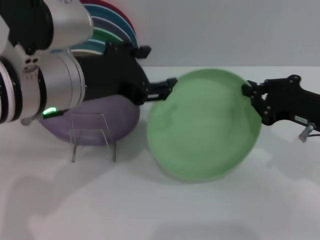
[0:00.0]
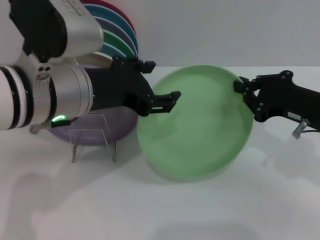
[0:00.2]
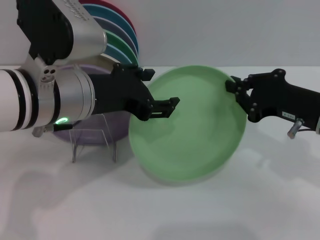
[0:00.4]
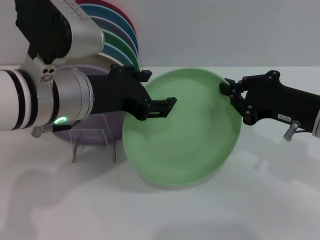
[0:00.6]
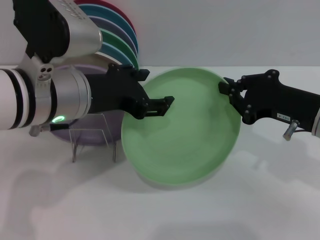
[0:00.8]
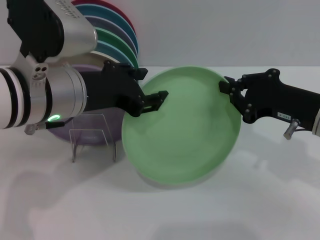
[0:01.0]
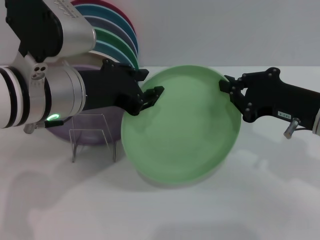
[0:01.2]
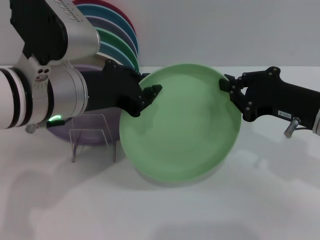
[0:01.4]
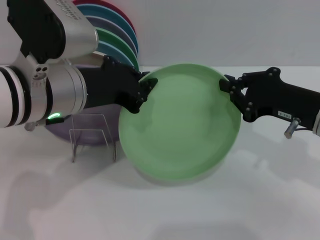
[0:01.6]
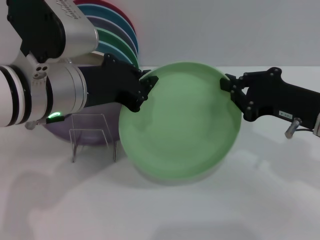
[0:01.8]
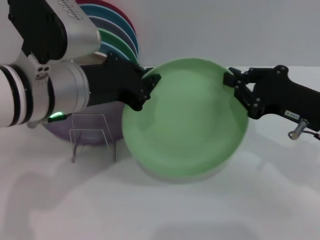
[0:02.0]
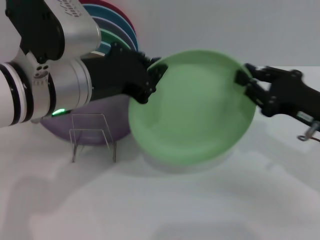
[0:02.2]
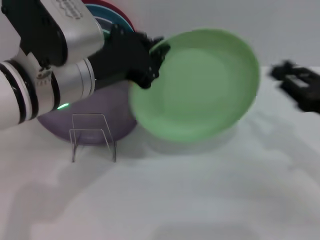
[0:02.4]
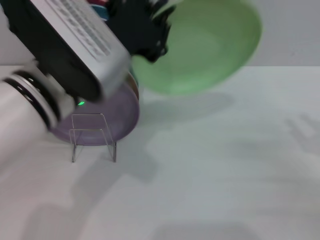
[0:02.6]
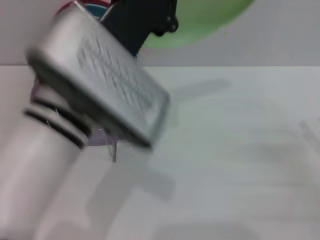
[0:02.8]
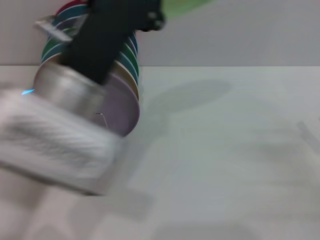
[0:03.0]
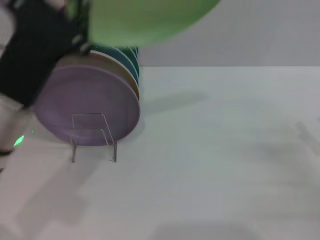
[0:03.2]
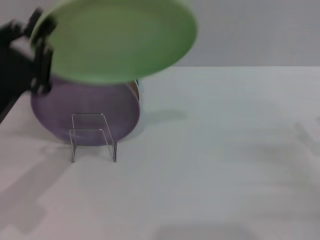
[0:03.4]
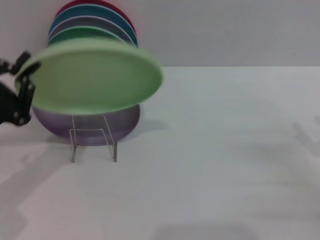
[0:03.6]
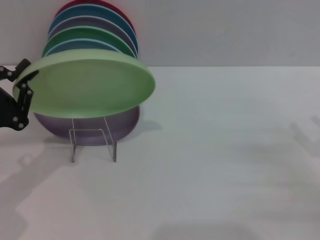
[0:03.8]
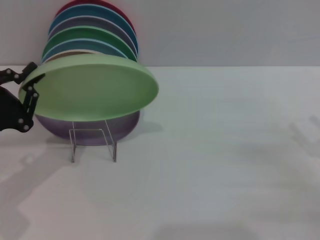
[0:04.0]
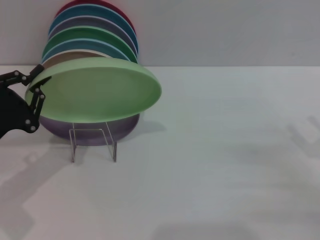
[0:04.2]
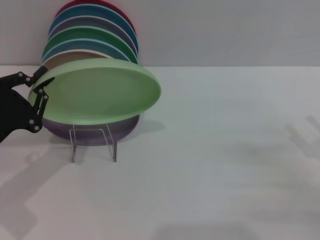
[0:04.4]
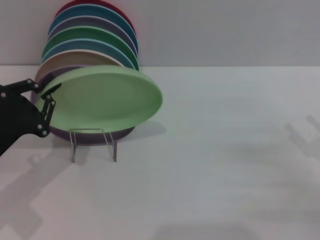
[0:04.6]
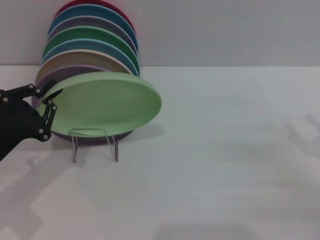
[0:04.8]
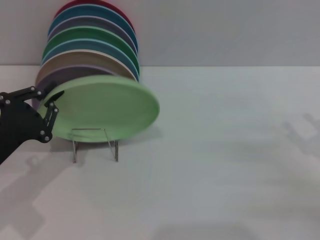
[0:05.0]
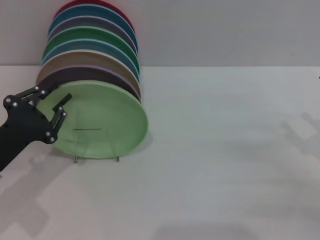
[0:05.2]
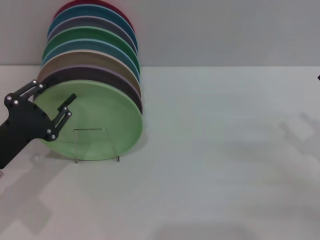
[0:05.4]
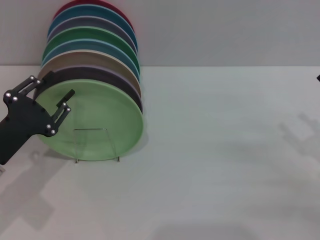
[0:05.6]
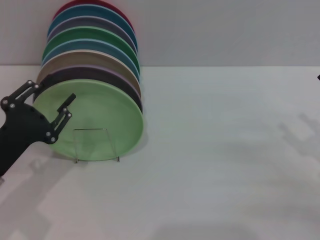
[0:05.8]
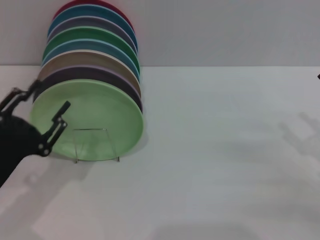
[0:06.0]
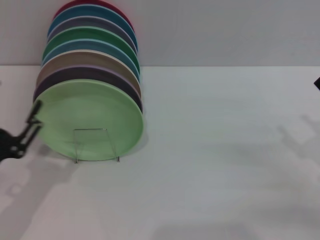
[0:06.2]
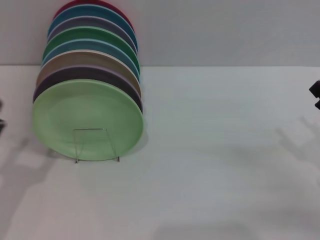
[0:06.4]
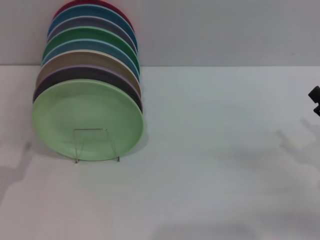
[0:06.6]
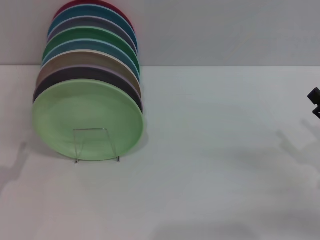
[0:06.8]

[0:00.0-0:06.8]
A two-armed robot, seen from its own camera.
Task of the whole recording: Grip the plate with one hand, pass it to the other, then set it on the shelf.
Step, 0:00.0 to 0:02.4: Pass the plate from the right gripper to the left gripper.
Step, 0:02.6 to 0:06.0: Place the plate on the shelf with the left gripper.
0:00.0 to 0:01.4: The left gripper closes up.
0:01.4 to 0:02.8: The right gripper is displaced to the right, downward and backward by approximately 15 cm, and opens its fingers. The left gripper moves to the right, about 5 cm, and closes its fingers.
0:02.8 to 0:04.0: The left gripper shifts some 25 cm to the left and downward.
0:04.0 to 0:05.4: The grippers make only small movements.
0:05.4 to 0:06.8: The left gripper shifts approximately 10 cm backward, and opens.

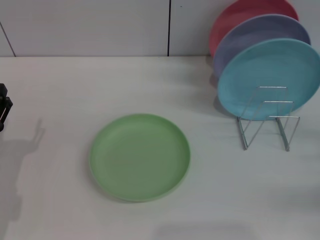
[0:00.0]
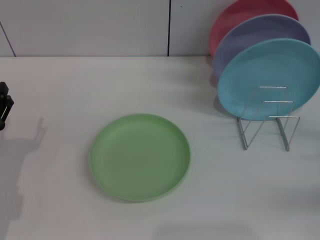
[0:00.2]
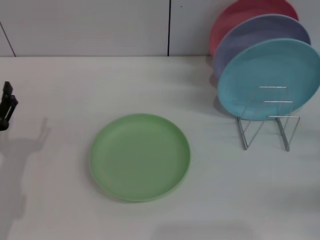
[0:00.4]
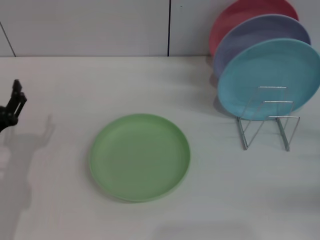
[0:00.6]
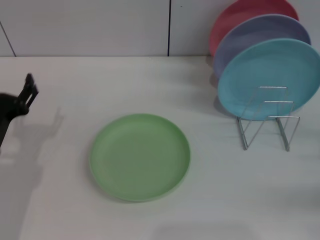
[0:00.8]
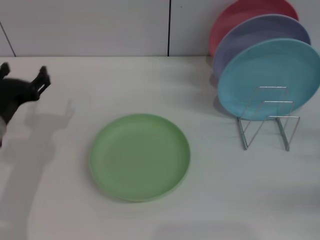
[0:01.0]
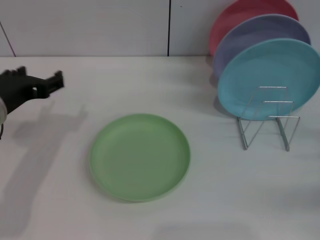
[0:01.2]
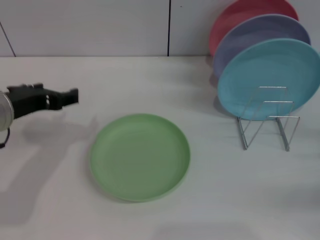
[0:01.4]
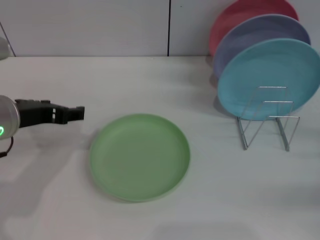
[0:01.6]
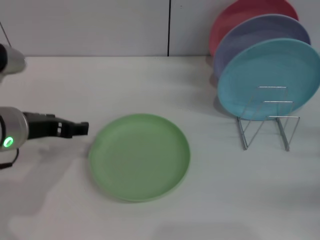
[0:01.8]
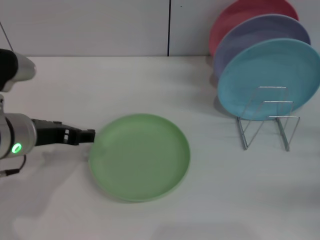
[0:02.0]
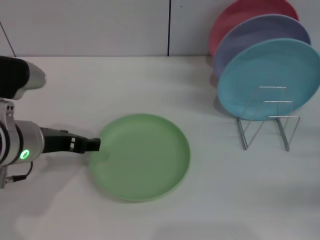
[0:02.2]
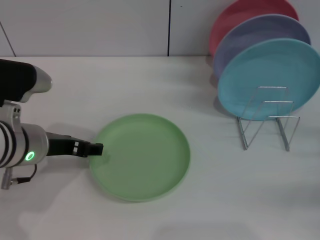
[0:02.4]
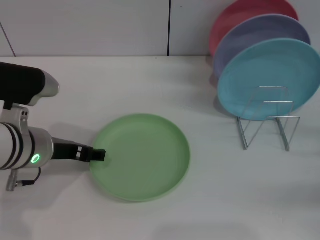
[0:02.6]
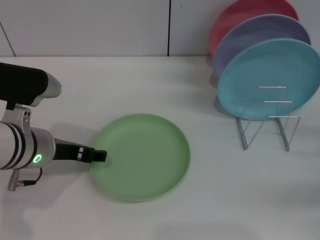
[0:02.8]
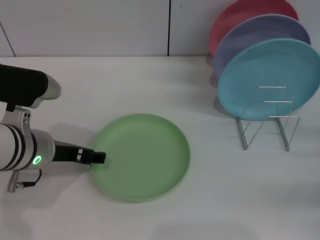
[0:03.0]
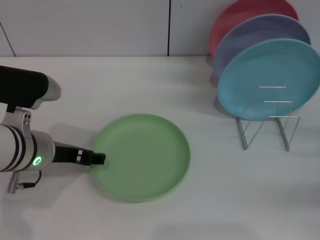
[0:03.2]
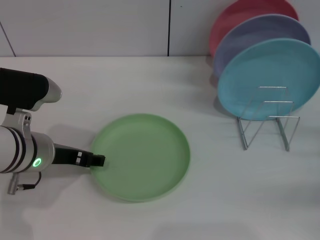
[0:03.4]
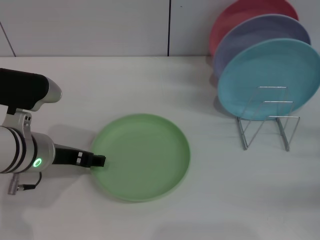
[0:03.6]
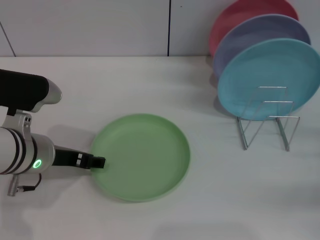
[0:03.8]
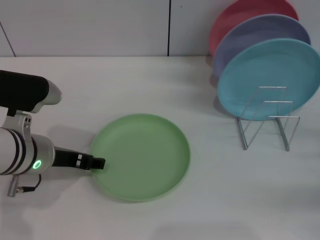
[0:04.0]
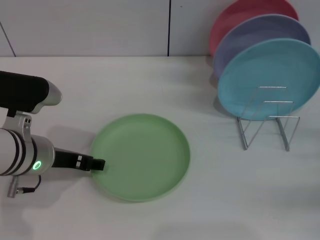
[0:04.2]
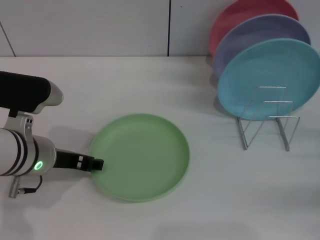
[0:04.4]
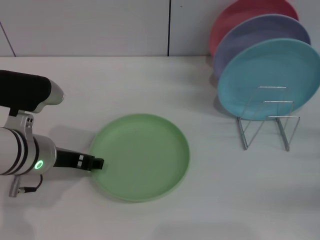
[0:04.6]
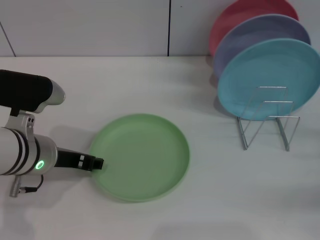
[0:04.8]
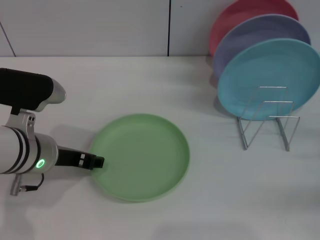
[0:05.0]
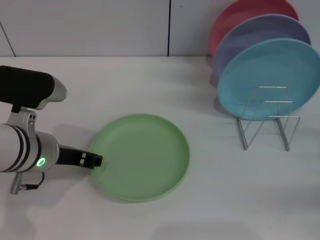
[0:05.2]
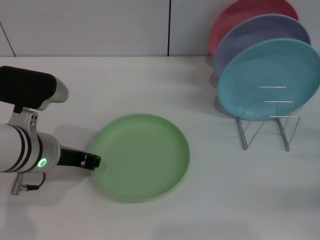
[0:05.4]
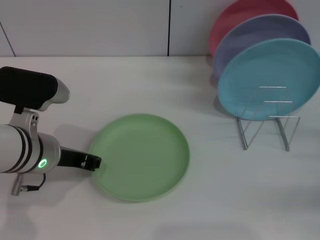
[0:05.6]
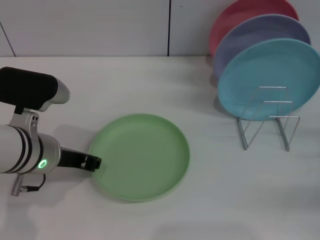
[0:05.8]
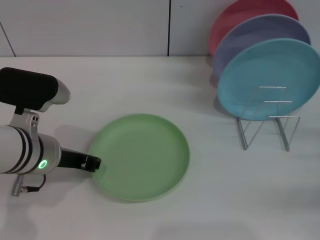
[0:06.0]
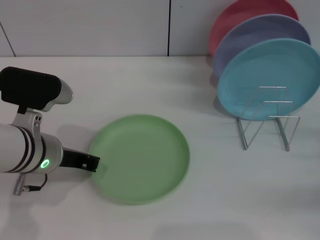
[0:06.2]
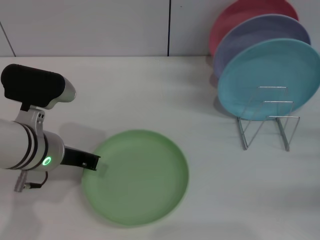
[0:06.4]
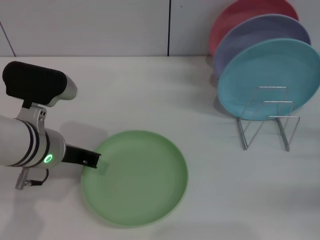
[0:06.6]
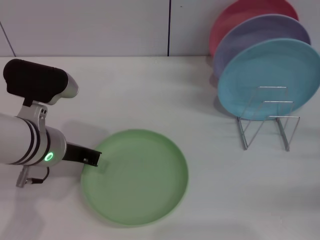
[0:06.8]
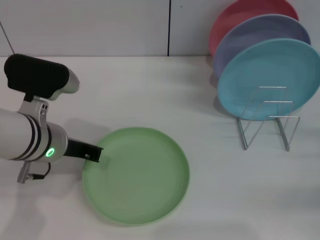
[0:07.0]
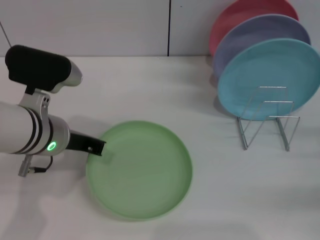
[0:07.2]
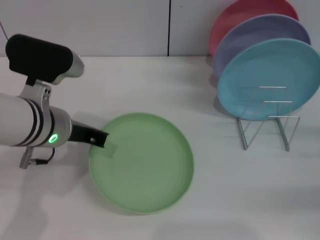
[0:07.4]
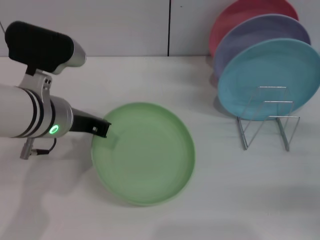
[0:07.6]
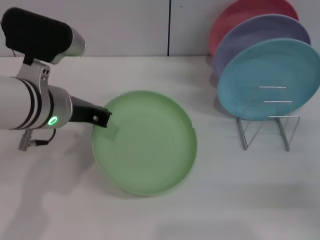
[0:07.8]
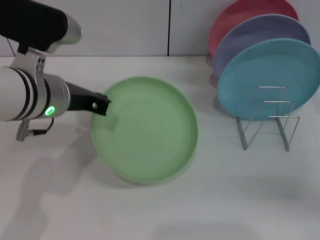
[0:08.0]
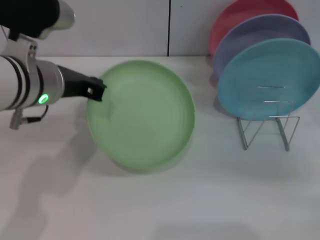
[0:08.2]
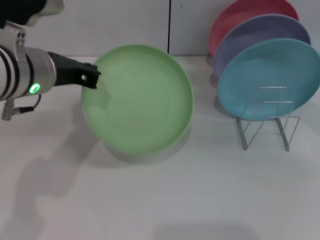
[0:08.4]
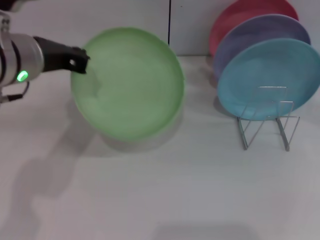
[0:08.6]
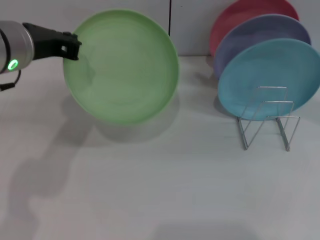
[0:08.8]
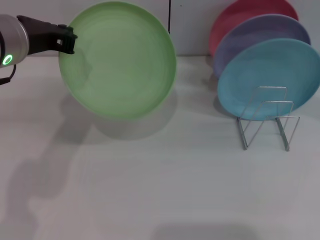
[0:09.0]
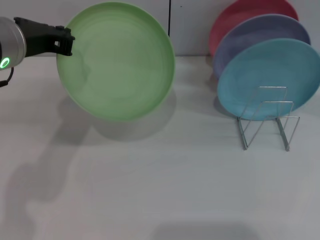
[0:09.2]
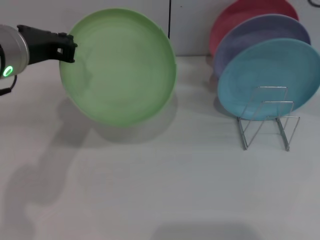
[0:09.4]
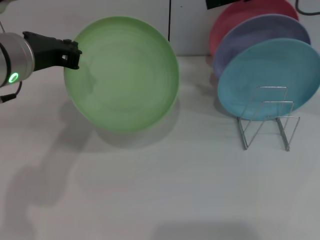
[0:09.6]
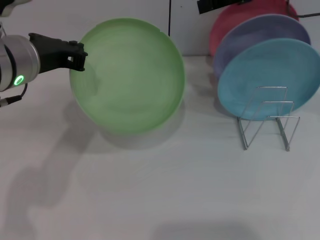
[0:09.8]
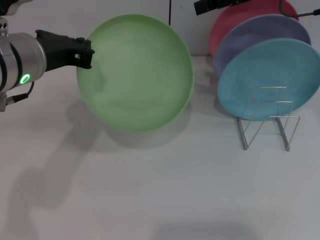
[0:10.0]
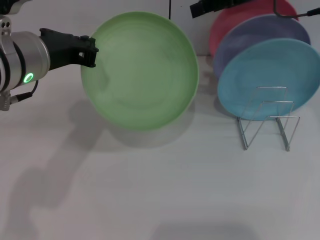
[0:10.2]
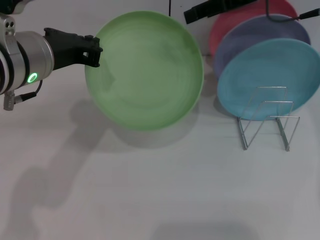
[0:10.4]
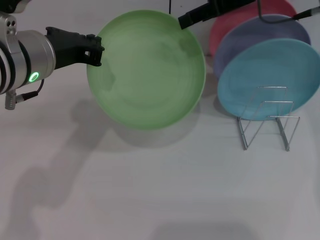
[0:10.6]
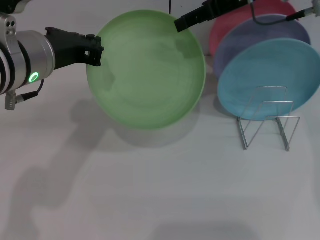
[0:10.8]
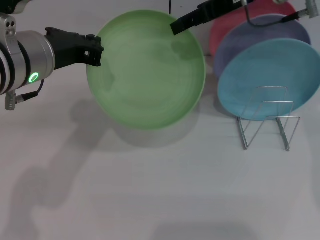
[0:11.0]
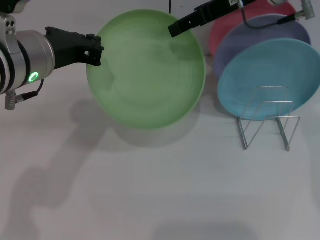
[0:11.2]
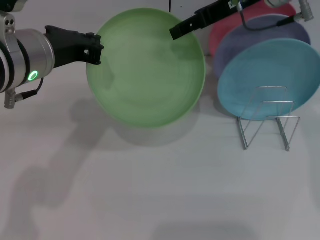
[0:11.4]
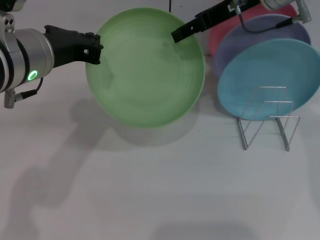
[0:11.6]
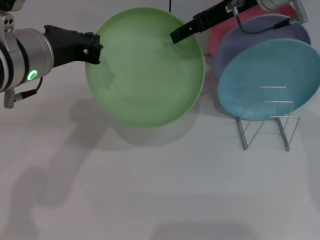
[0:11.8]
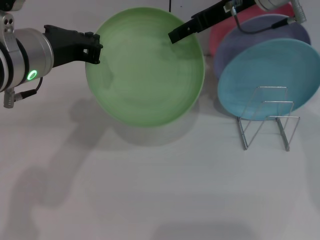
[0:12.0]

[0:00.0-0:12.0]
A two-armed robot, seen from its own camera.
Task of the whole recording: Grip the plate with one hand, pass it to the other, then set it on the shelf.
Step, 0:00.0 to 0:07.6: Pick up the plate with the left gripper.
0:00.0 to 0:01.6: The left gripper goes about 15 cm upward, to the right and forward.
0:01.6 to 0:03.0: The left gripper travels downward by about 5 cm.
0:03.0 to 0:04.4: The two grippers keep their place.
0:04.4 to 0:06.0: The left gripper closes its fingers.
0:06.0 to 0:07.6: The left gripper changes place by roughly 5 cm, and closes up.
0:07.6 to 0:09.0: The right gripper shifts roughly 30 cm upward and to the left; the left gripper goes roughly 10 cm upward.
0:09.0 to 0:10.4: The right gripper heads downward and forward, covering some 10 cm.
0:10.4 to 0:12.0: The grippers stay close to where they were, moving slightly.

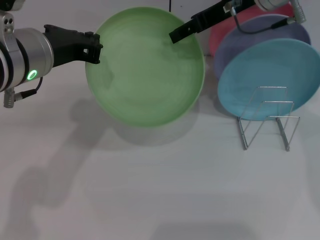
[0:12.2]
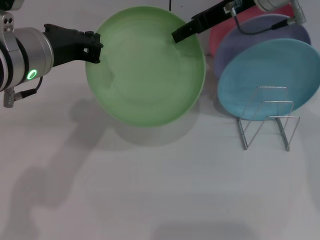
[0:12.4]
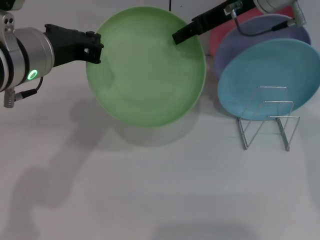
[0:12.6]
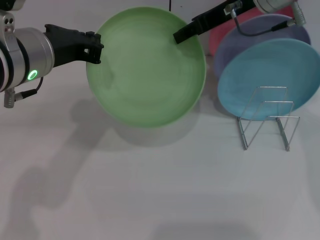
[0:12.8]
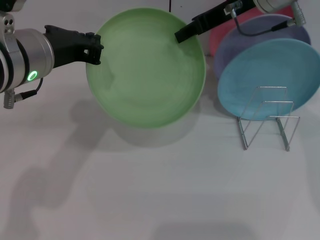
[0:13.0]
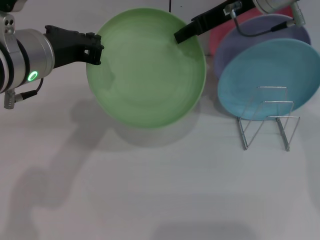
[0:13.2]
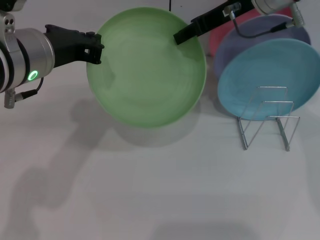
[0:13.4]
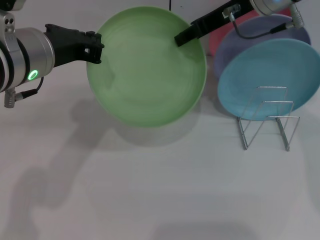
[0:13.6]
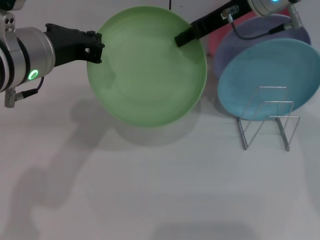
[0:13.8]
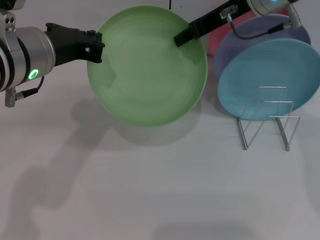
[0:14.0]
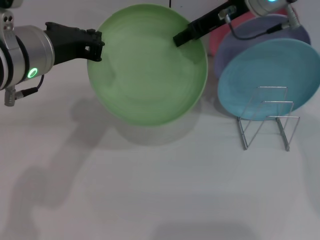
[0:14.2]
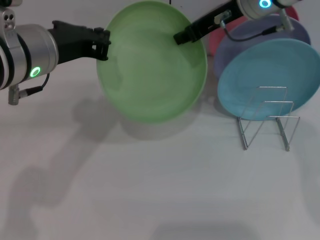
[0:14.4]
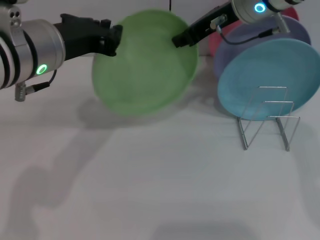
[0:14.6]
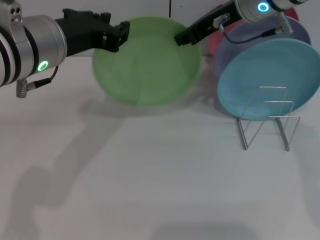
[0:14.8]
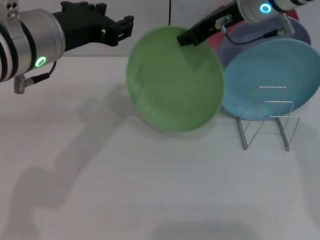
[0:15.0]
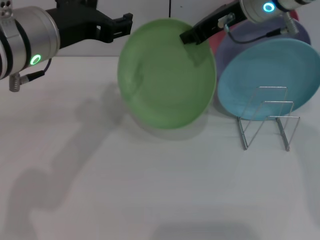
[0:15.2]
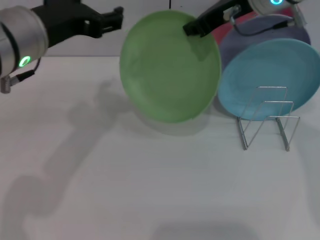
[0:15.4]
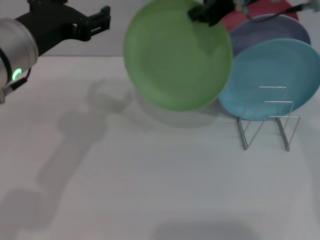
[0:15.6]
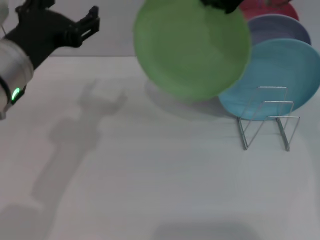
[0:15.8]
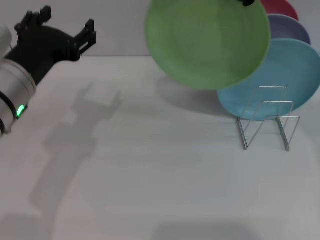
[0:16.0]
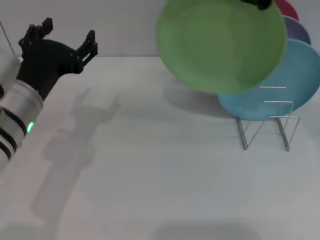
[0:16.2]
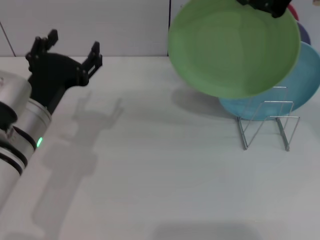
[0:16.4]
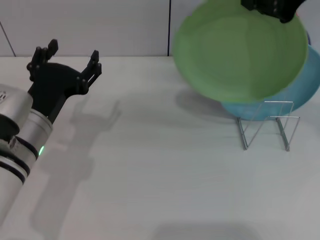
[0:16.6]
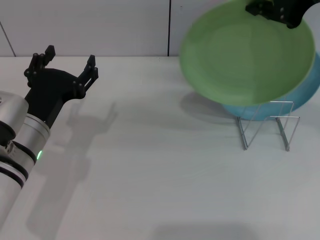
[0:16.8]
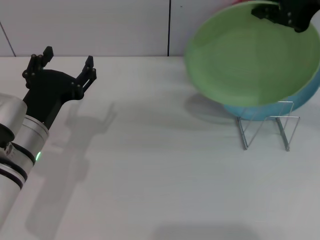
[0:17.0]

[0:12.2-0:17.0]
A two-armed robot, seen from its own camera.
Task of the whole recording: Grip the plate with one hand, pass it to the other, then set it on the shelf.
Step, 0:12.2 to 0:15.4: Pass the plate from the left gripper to the right gripper.
0:12.2 to 0:13.8: The right gripper closes its fingers.
0:13.8 to 0:15.4: The left gripper opens its fingers.
0:15.4 to 0:17.0: The right gripper goes approximately 15 cm backward, to the right and upward. The left gripper moves downward, approximately 15 cm.
